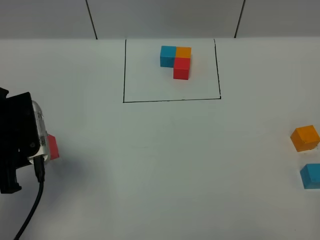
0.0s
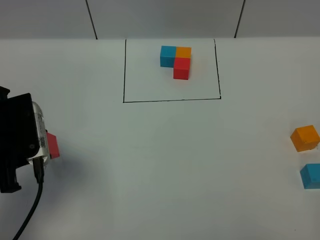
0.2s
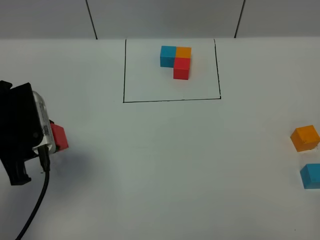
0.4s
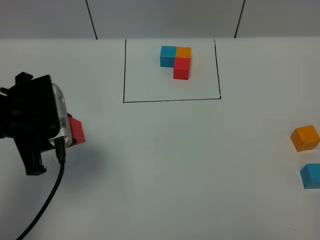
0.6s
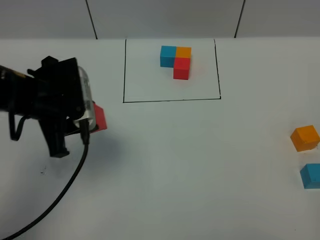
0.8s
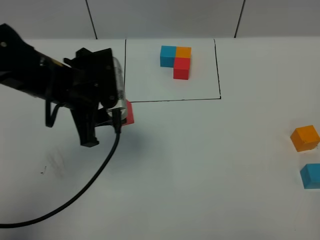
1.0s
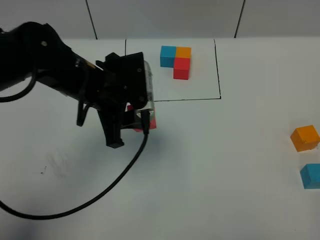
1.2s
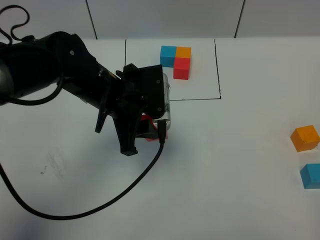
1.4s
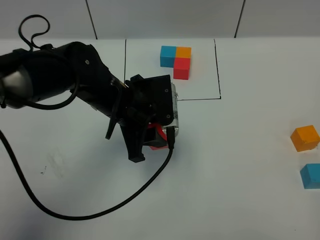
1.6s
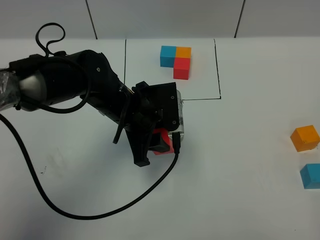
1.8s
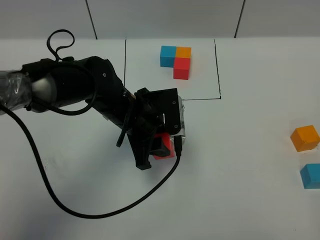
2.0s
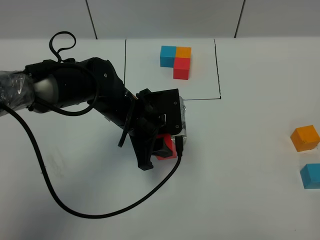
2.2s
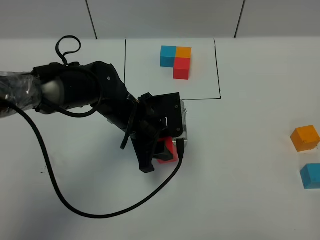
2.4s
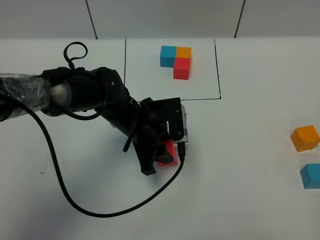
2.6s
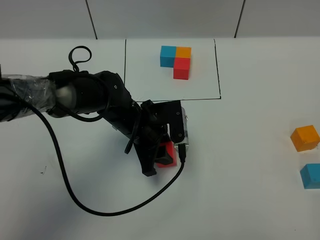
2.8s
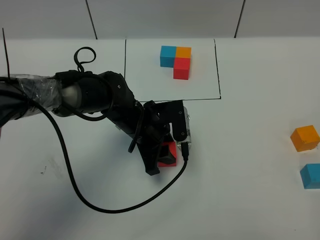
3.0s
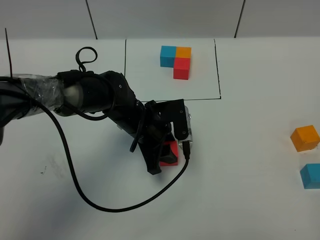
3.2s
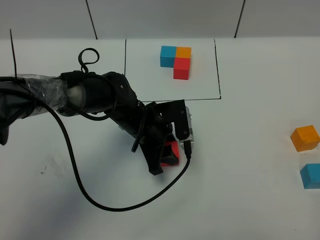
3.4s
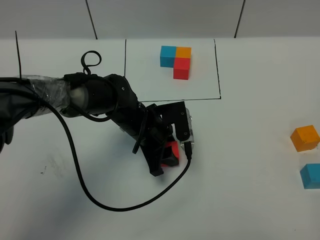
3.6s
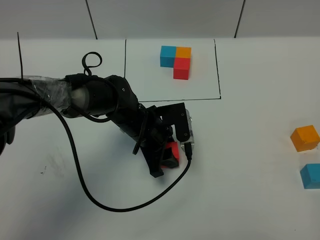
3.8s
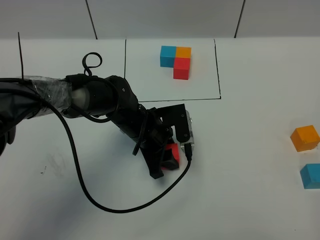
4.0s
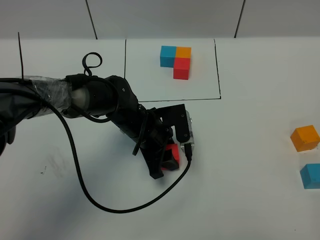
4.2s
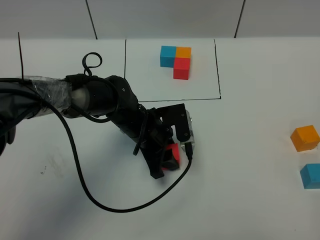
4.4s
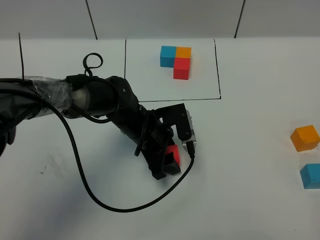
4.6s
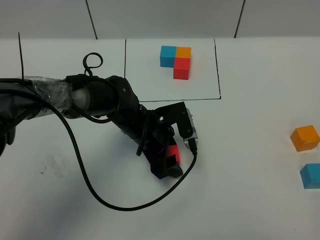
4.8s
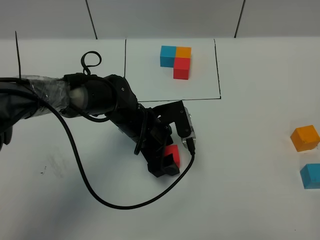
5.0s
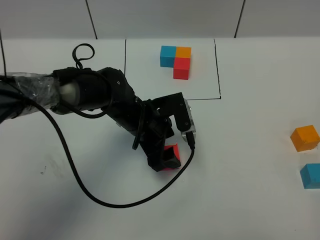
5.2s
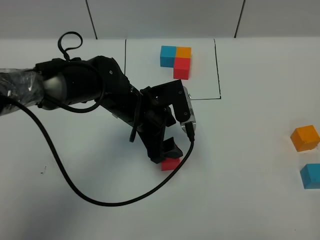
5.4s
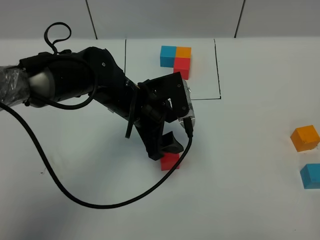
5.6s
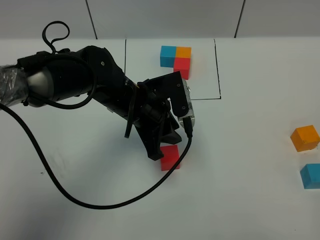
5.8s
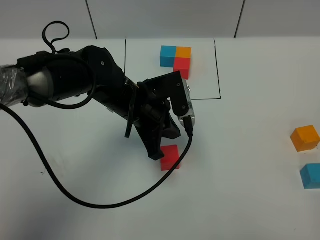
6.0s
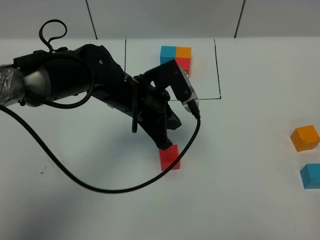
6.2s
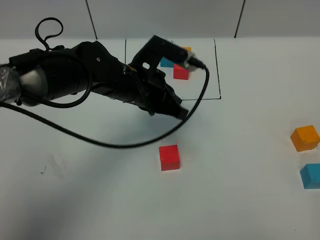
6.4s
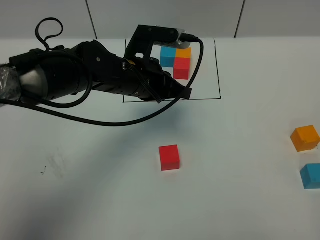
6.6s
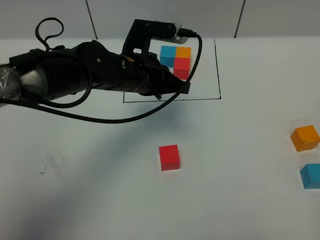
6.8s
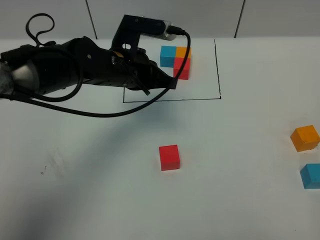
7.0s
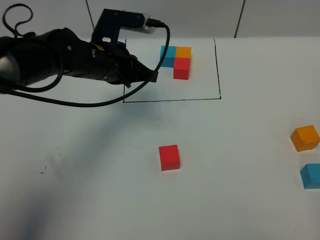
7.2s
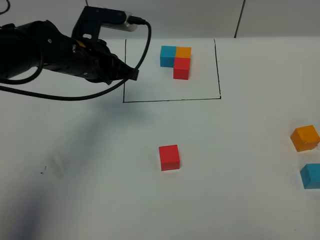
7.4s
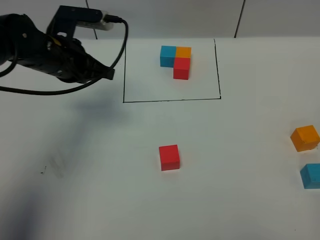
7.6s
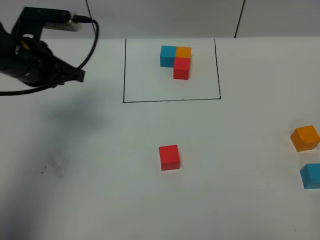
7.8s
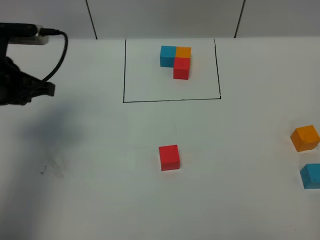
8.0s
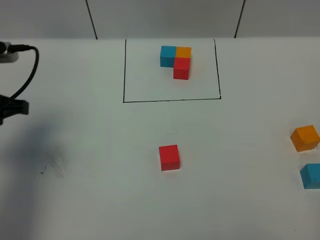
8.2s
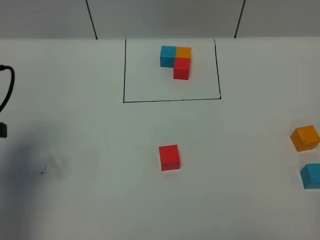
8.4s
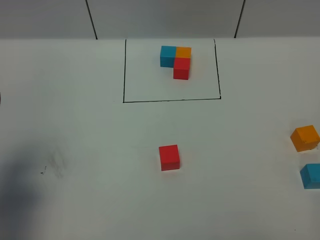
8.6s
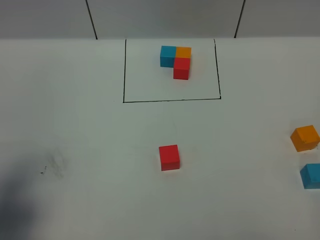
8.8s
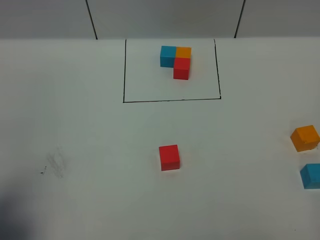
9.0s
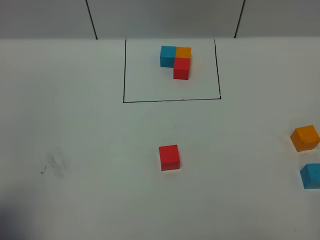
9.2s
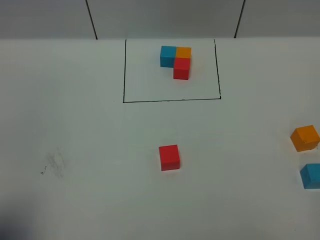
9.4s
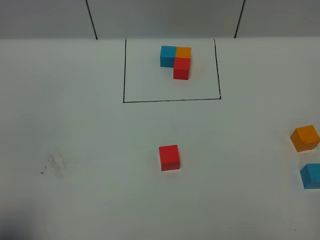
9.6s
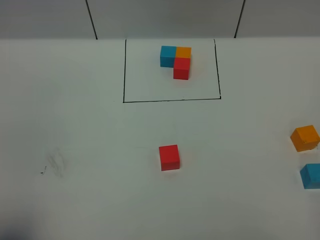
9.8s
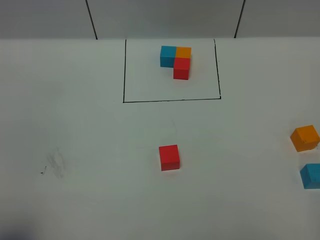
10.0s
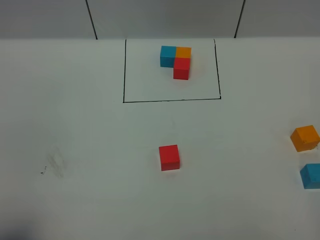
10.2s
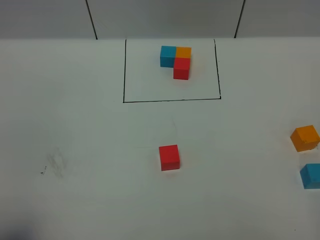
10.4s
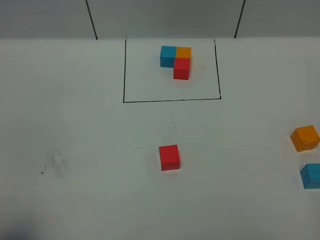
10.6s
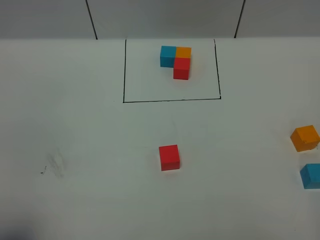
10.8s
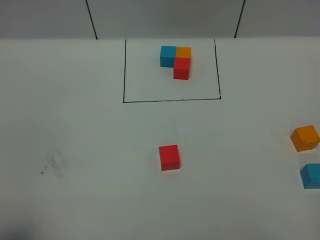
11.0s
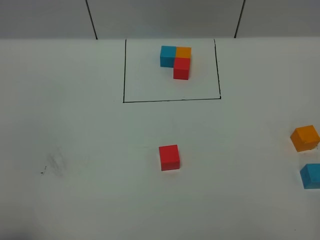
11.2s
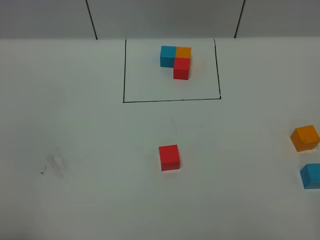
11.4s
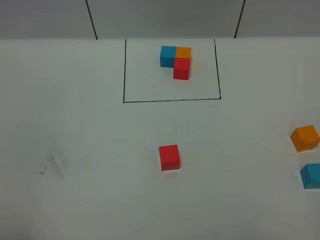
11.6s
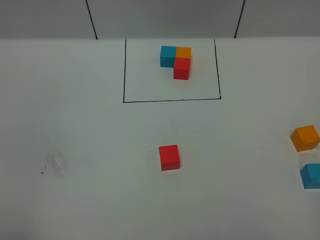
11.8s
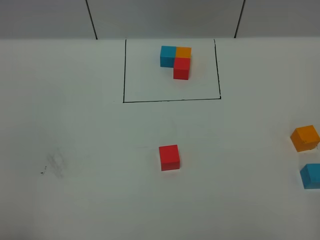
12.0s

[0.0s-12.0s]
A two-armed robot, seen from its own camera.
Task of the whole recording: According to the building block template in front, assemble the scattered blocks together.
Step, 0.0s to 6.8s: Put the red cube in the center of the table.
0.0s to 1.6s: The left gripper travels to the right and forward by some 20 cm.
1.6s to 3.0s: The left gripper moves downward, about 10 cm.
3.0s to 4.4s: There are only small adjustments of the grippers.
4.4s to 6.0s: The left gripper shifts about 10 cm upward, and closes.
6.0s to 7.6s: The left gripper goes about 15 cm to the left, forward and upward.
7.6s to 9.0s: The left gripper is displaced backward and to the left by roughly 30 cm.
9.0s to 10.4s: The left gripper goes some 5 cm backward.

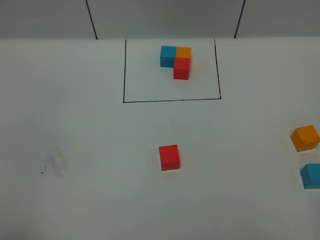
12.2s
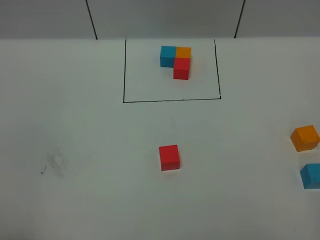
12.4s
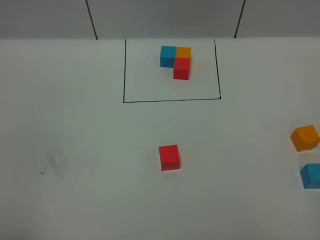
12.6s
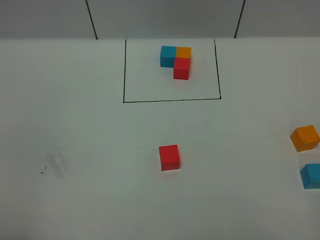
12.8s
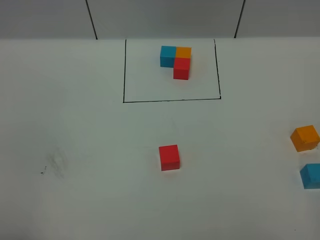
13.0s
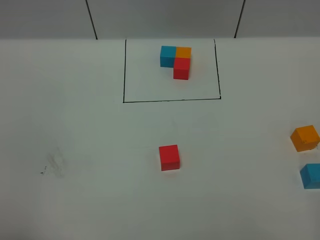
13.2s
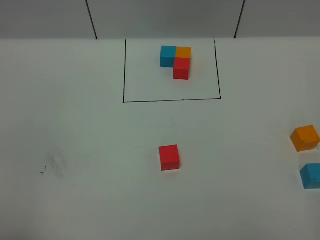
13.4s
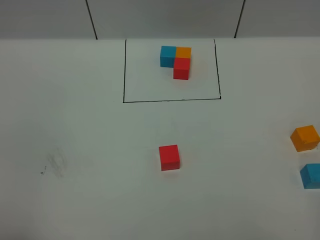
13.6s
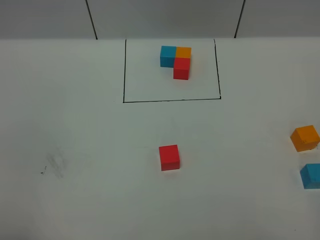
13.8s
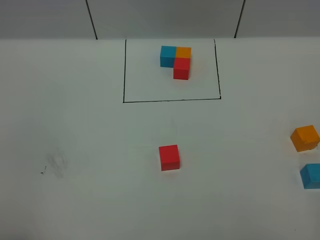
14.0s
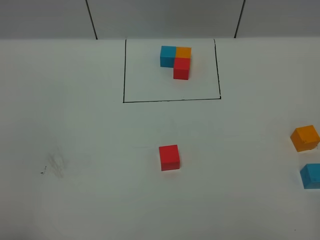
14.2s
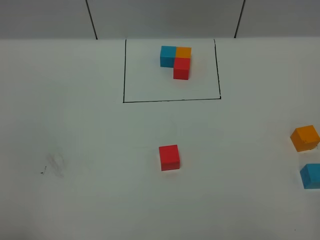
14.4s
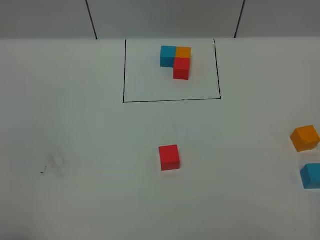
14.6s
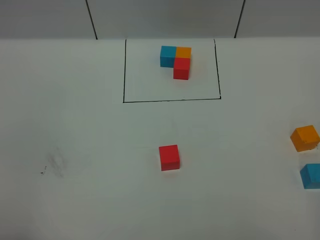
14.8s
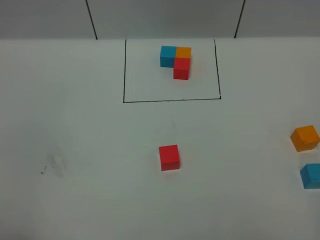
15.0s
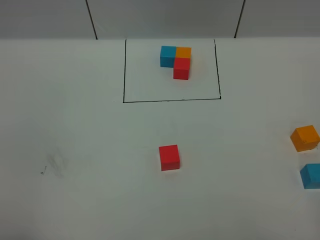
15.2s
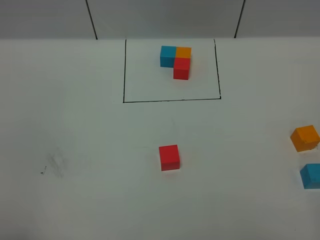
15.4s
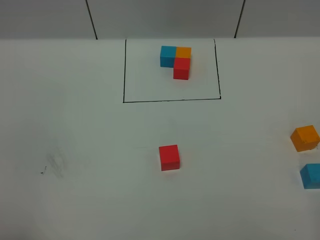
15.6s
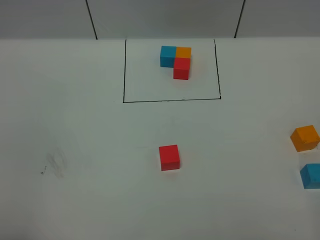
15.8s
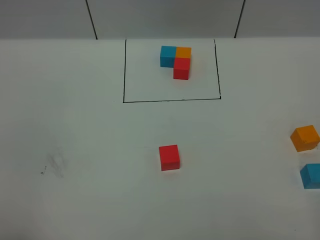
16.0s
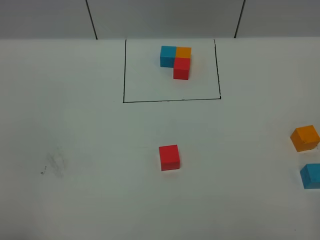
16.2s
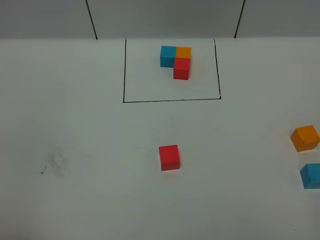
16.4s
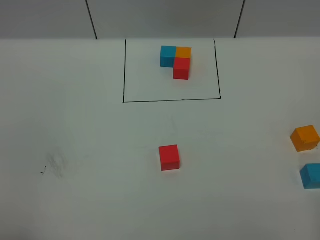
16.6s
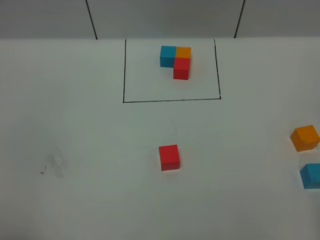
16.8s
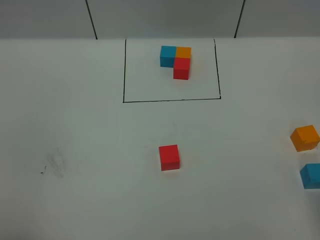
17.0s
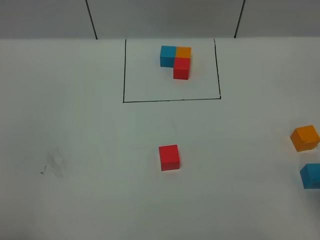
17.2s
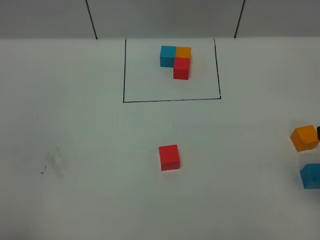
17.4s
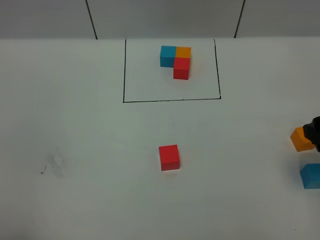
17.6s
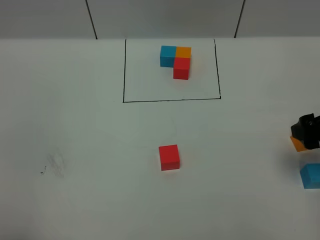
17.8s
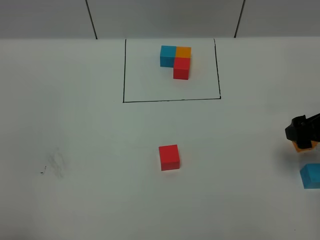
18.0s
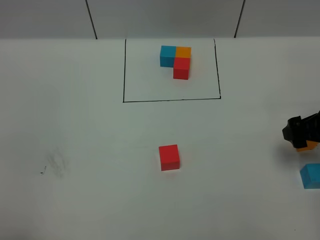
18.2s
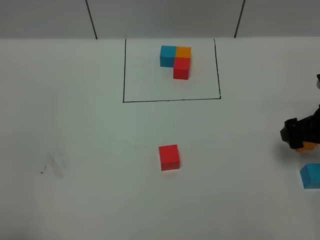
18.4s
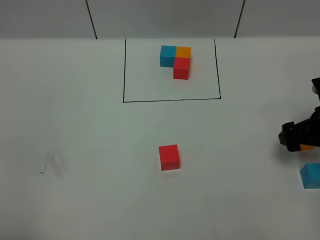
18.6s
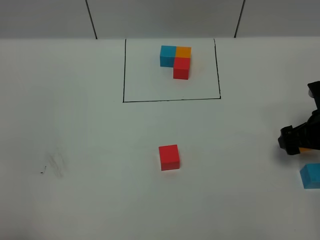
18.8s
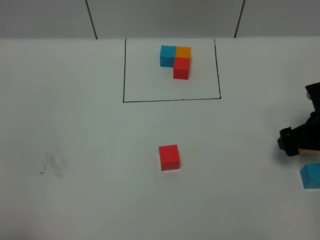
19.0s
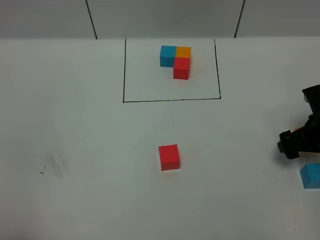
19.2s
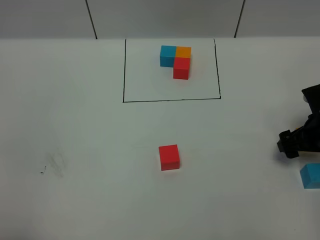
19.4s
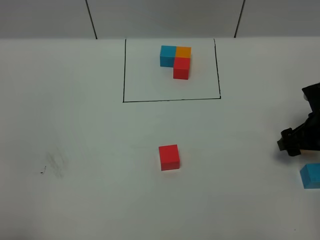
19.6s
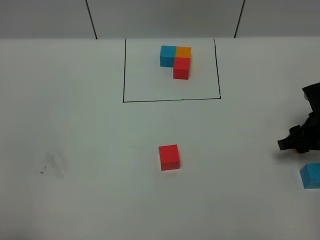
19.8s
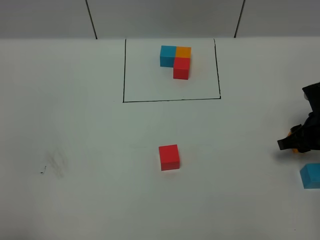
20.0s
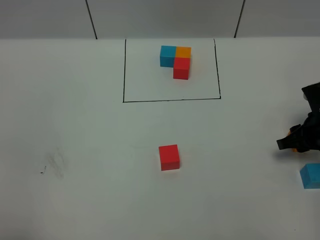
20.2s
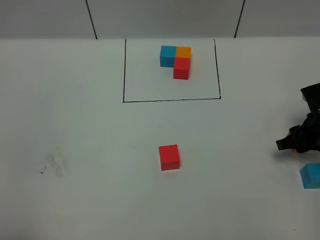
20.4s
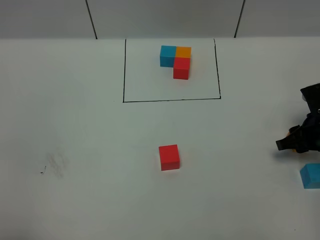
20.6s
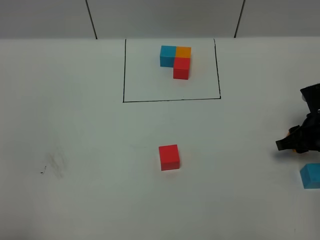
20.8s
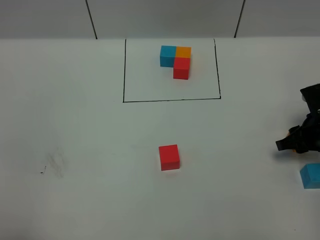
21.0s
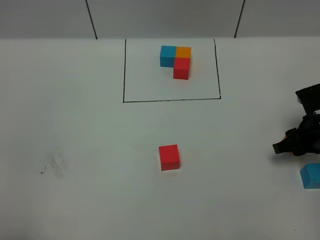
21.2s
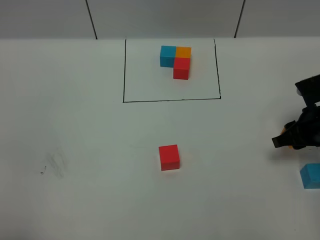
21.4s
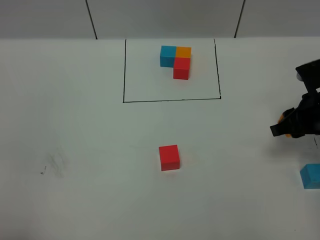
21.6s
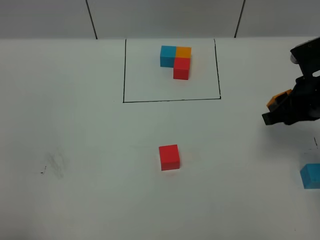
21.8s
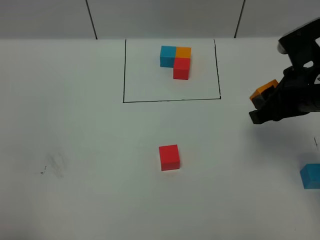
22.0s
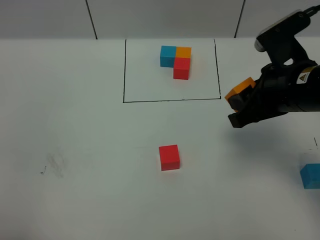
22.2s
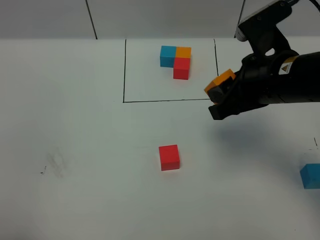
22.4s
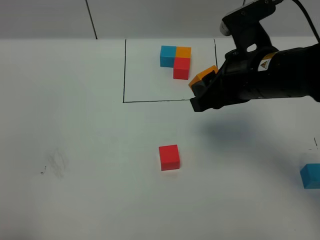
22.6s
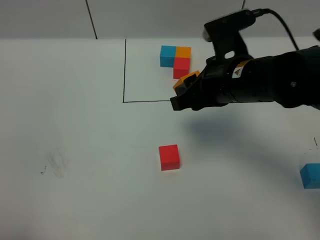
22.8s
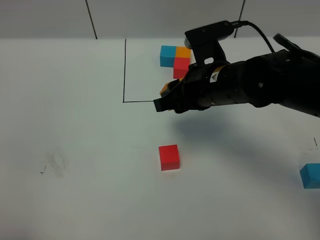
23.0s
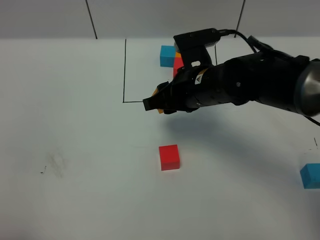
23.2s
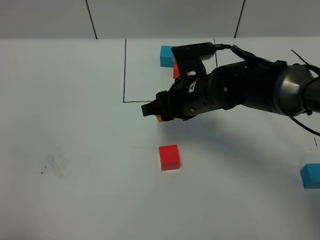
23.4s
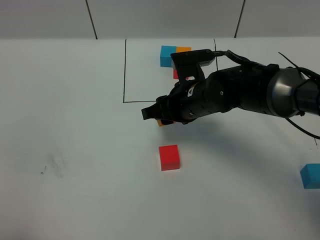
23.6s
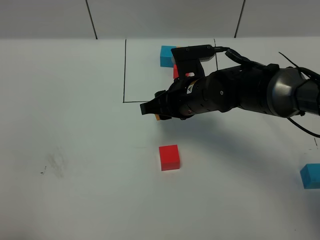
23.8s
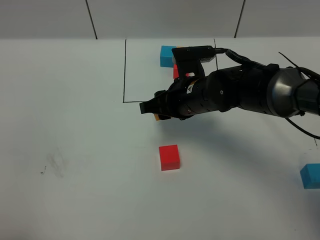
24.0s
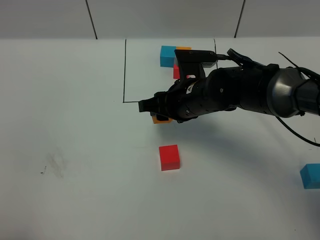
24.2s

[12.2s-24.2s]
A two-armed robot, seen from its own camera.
Task of the whole recording: According to the building block template in front, assemble the scattered blocks together.
12.2s to 15.2s: The two grippers keep their place.
16.6s to 18.2s: The right gripper moves forward and downward, roughly 30 cm.
18.2s to 19.8s: The right gripper heads downward, covering about 5 cm, and closes.
19.8s to 21.2s: Both grippers stay about where they are.
21.2s to 22.6s: The right gripper moves upward and to the left, approximately 25 cm.
22.6s to 24.2s: The right gripper moves downward, to the left and forward, roughly 15 cm.
